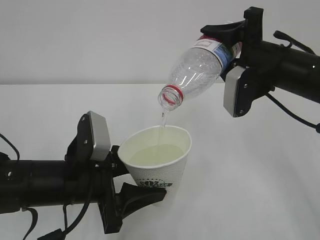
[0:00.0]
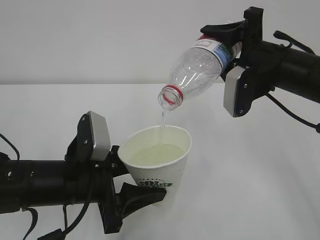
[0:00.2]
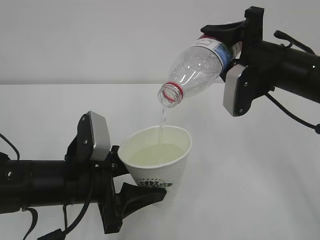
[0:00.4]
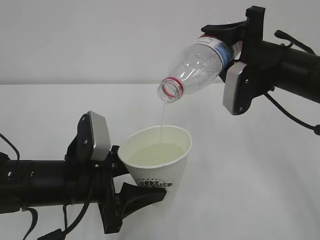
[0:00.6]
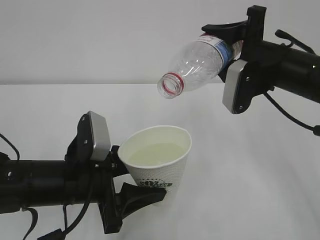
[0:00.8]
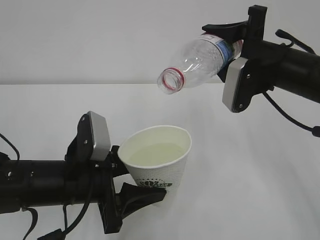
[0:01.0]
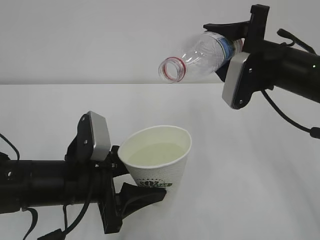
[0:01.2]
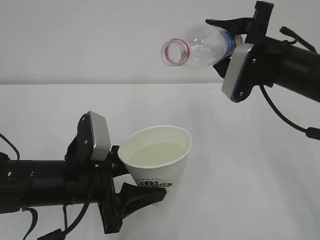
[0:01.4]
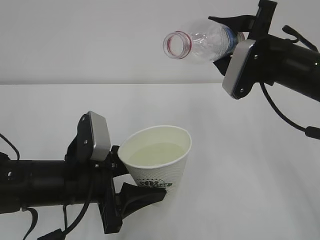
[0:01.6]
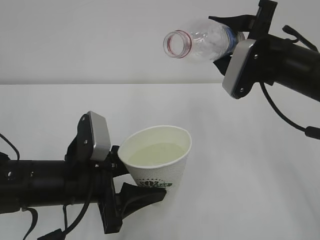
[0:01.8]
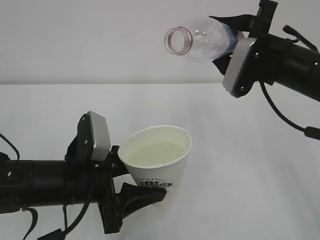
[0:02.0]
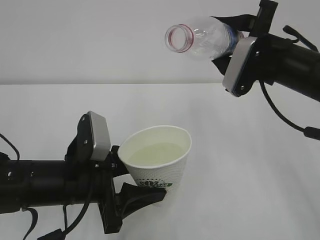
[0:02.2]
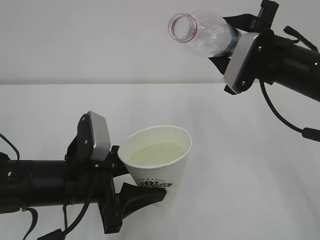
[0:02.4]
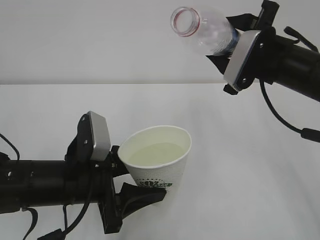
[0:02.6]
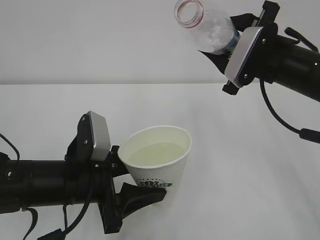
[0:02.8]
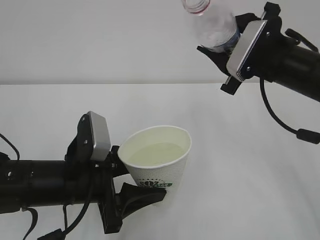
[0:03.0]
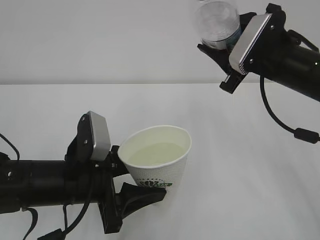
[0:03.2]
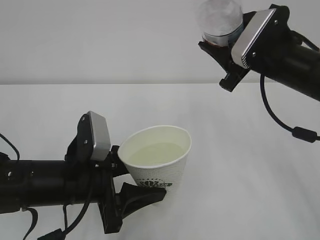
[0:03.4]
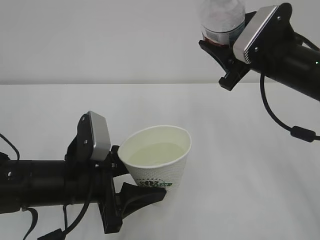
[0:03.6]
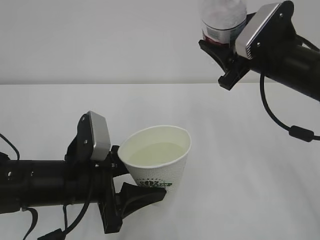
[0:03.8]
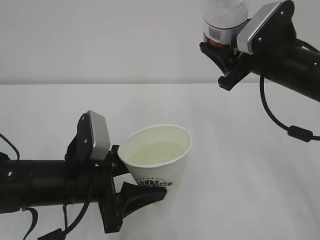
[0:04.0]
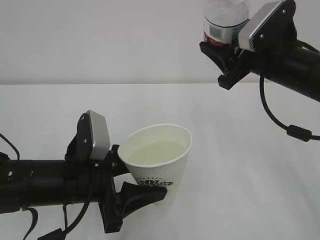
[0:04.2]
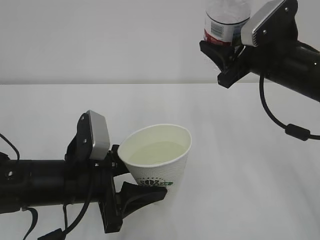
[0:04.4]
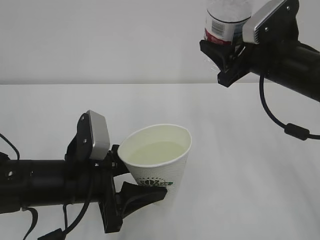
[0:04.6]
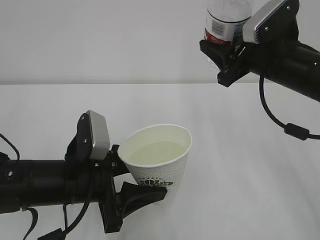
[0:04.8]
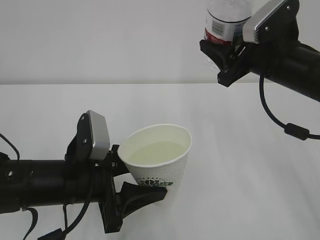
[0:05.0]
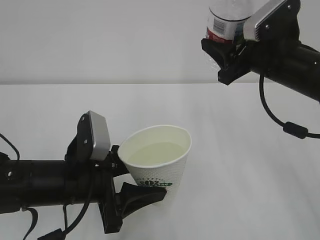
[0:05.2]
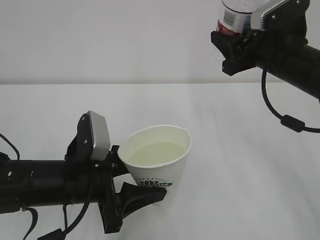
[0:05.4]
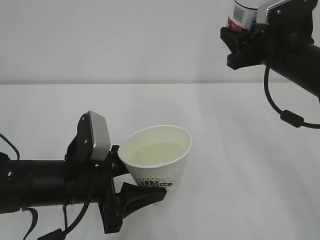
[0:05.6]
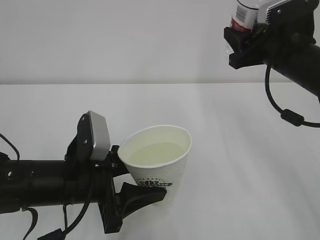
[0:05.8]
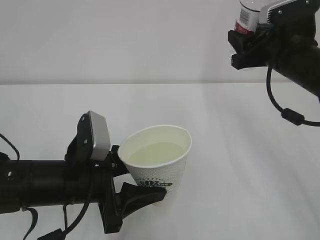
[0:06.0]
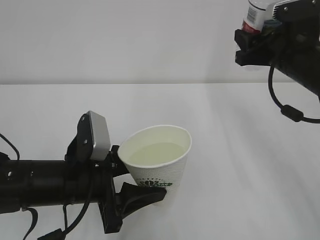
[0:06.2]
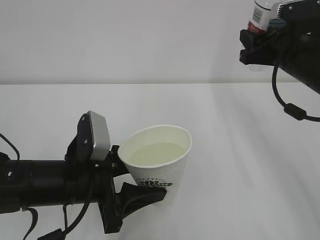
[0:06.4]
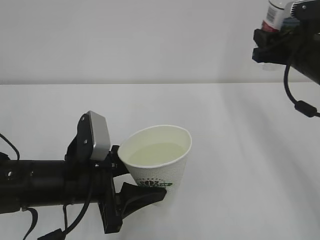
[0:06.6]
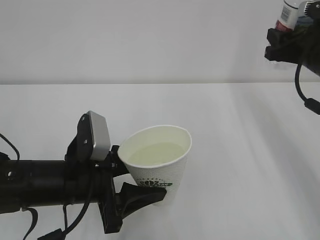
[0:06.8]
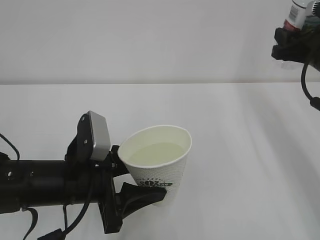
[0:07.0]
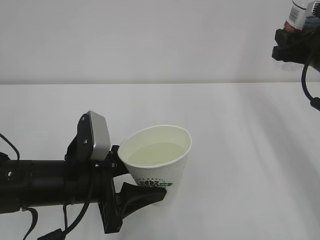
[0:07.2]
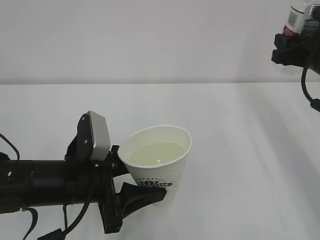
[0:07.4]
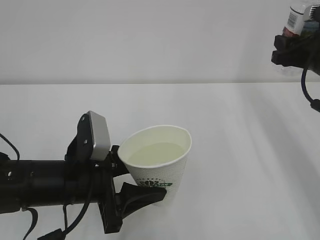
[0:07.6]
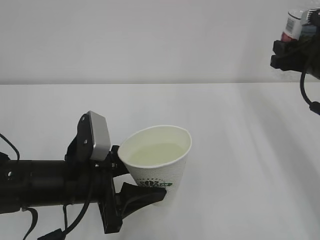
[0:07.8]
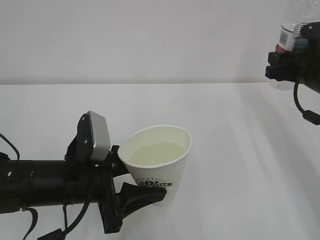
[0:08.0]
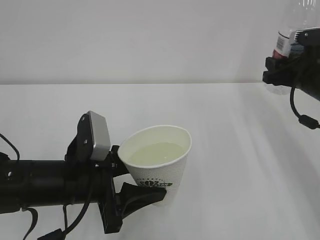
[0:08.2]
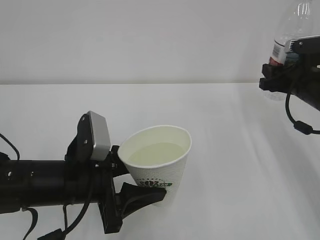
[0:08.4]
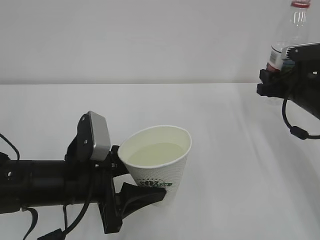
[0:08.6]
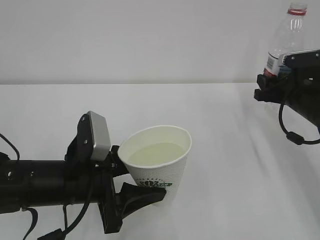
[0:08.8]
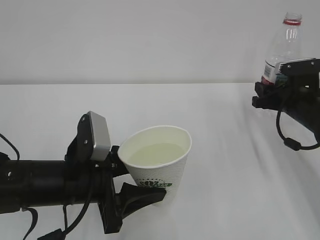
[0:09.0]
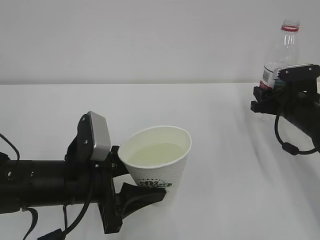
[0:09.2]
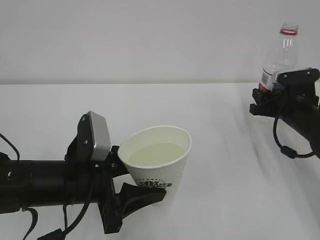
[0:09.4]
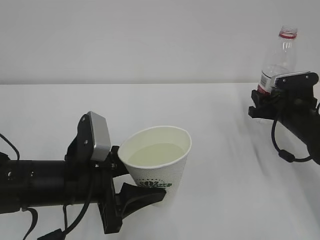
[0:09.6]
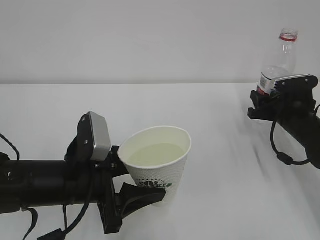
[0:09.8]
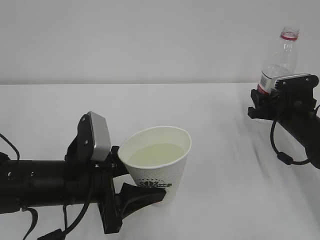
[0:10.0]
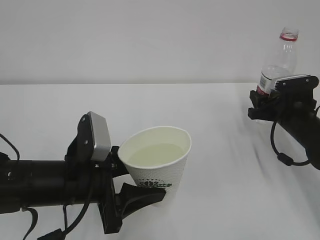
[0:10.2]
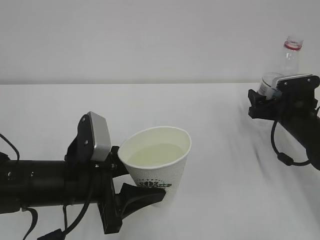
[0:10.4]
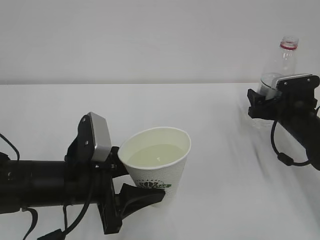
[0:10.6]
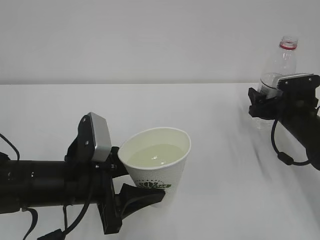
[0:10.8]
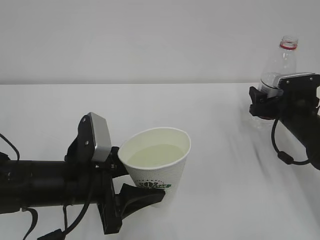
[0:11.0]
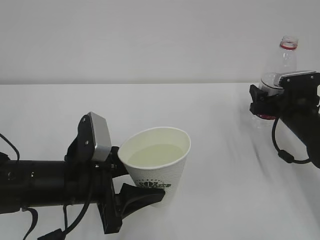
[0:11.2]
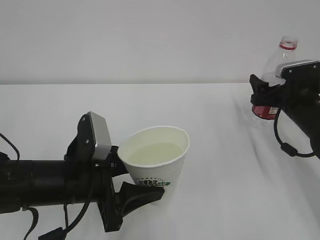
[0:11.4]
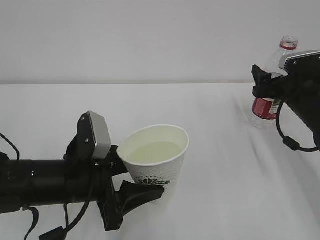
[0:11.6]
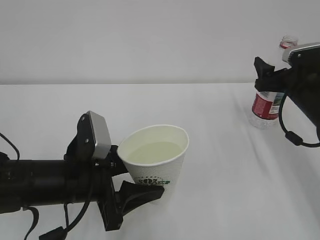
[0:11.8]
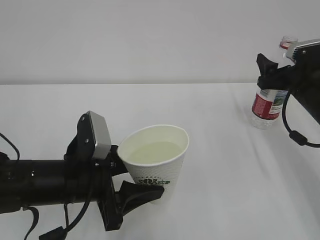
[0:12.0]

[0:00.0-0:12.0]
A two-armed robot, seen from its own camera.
0:06.0 to 0:07.6: The right gripper shifts approximately 5 cm to the right.
0:07.6 to 0:09.0: The right gripper is displaced downward by about 10 cm.
0:09.0 to 0:10.4: The right gripper opens.
0:10.4 to 0:12.0: The right gripper heads upward, covering approximately 5 cm.

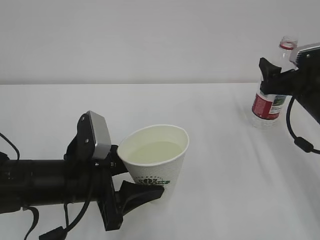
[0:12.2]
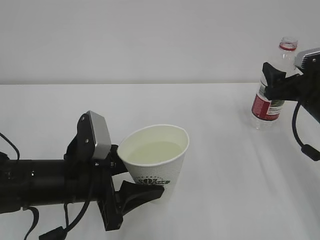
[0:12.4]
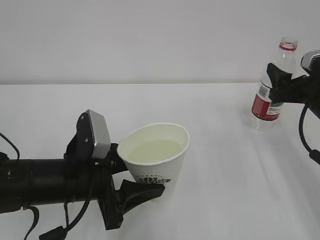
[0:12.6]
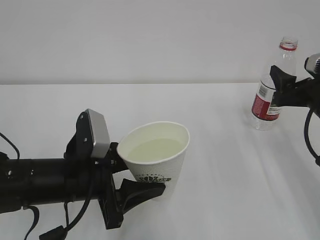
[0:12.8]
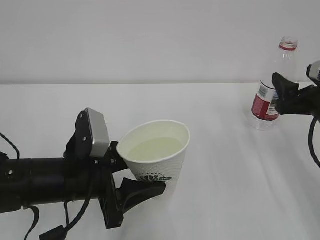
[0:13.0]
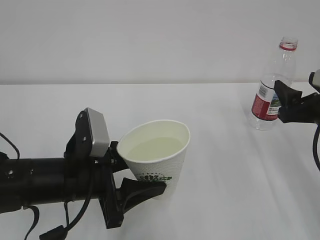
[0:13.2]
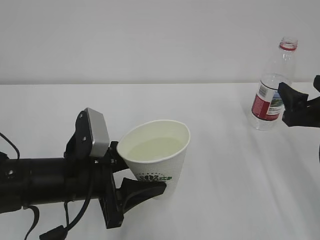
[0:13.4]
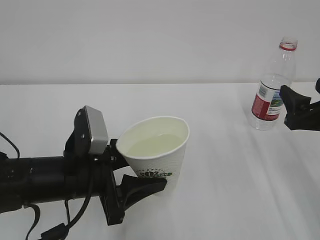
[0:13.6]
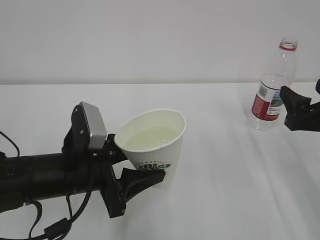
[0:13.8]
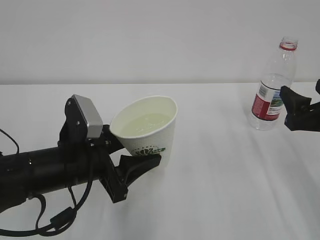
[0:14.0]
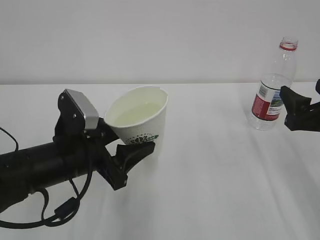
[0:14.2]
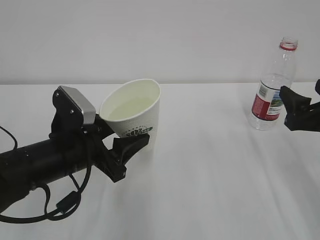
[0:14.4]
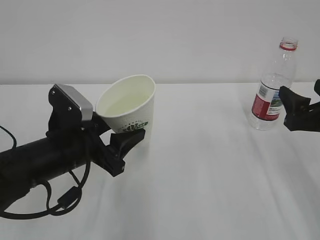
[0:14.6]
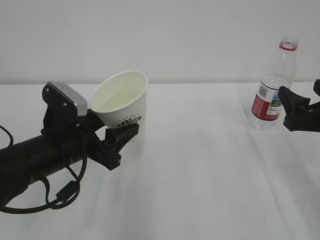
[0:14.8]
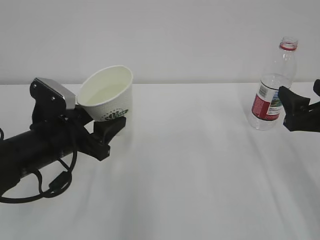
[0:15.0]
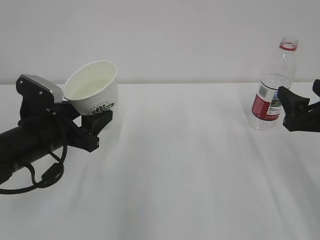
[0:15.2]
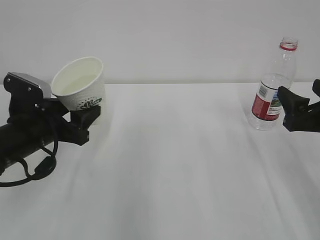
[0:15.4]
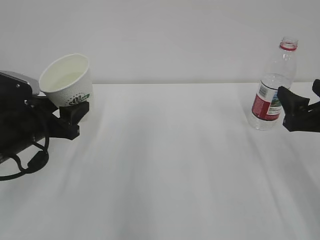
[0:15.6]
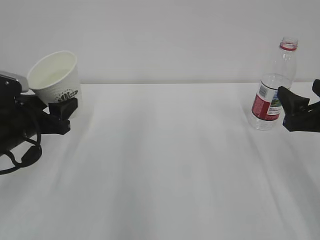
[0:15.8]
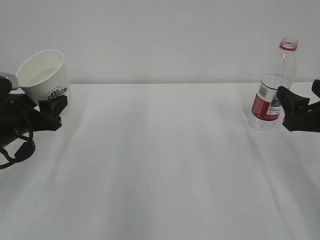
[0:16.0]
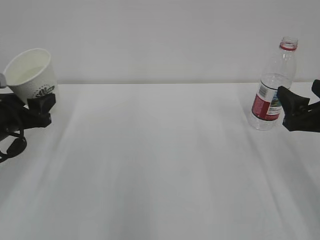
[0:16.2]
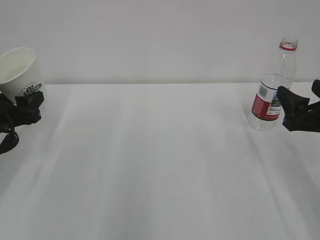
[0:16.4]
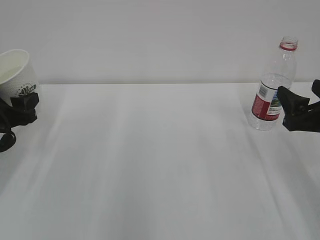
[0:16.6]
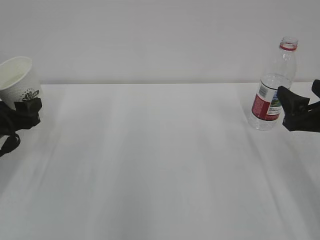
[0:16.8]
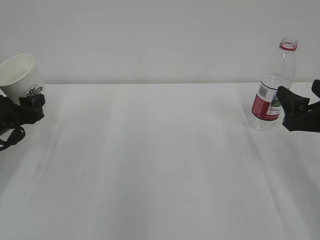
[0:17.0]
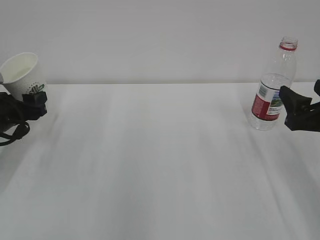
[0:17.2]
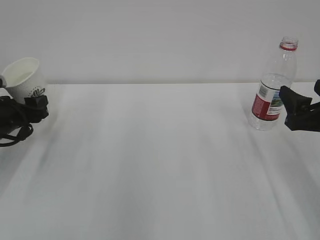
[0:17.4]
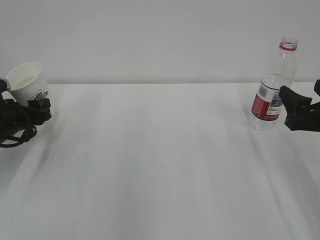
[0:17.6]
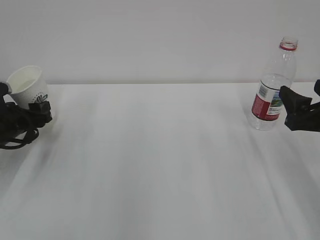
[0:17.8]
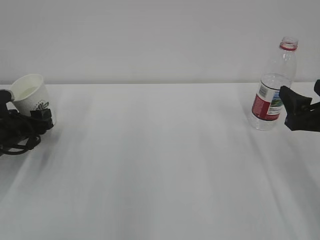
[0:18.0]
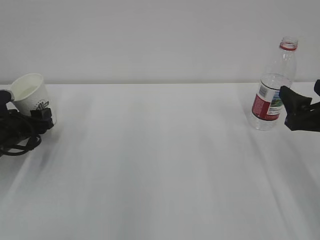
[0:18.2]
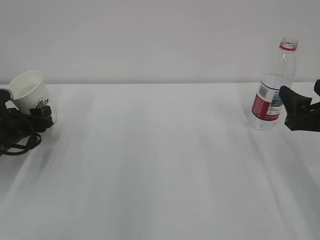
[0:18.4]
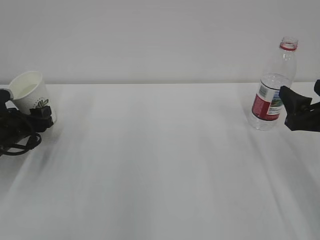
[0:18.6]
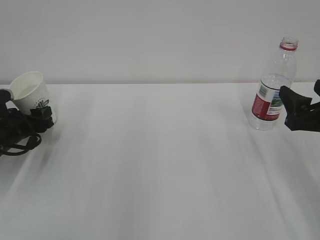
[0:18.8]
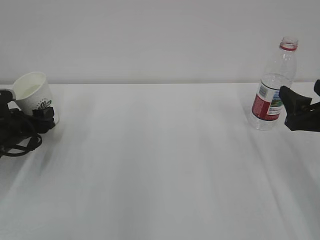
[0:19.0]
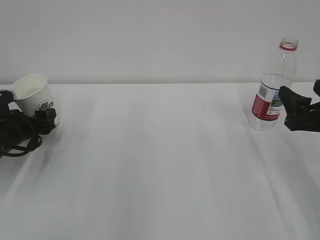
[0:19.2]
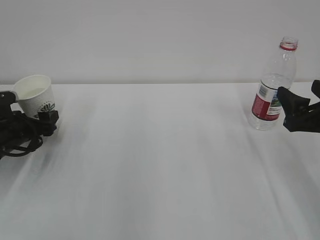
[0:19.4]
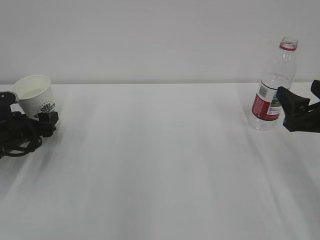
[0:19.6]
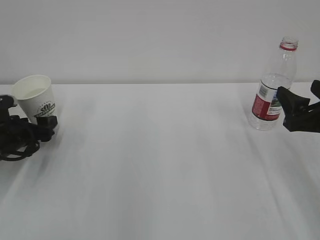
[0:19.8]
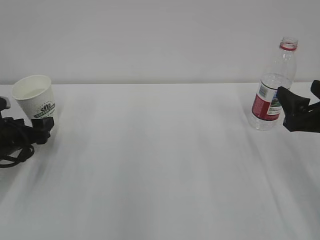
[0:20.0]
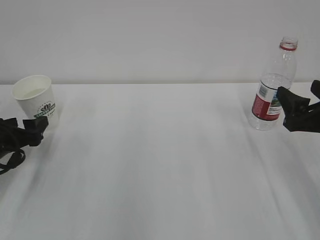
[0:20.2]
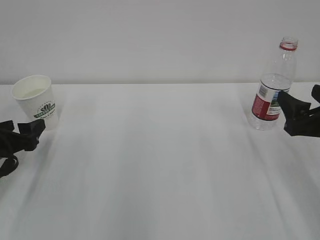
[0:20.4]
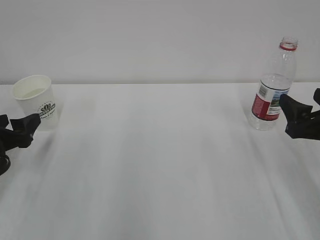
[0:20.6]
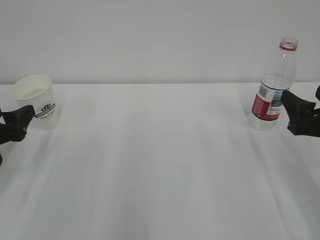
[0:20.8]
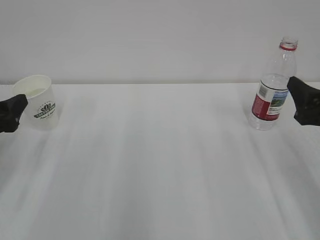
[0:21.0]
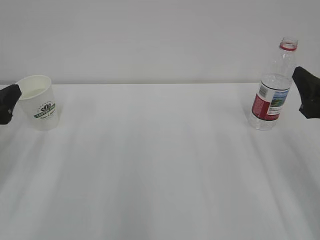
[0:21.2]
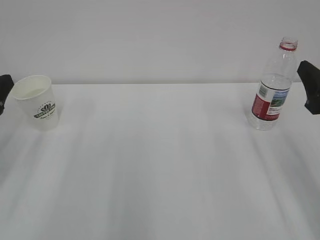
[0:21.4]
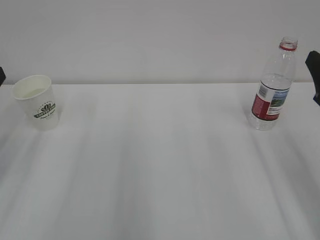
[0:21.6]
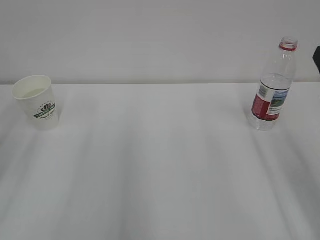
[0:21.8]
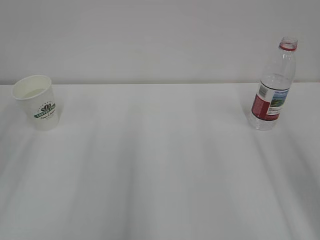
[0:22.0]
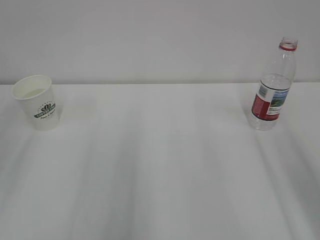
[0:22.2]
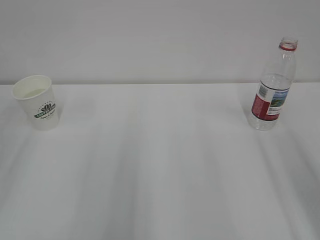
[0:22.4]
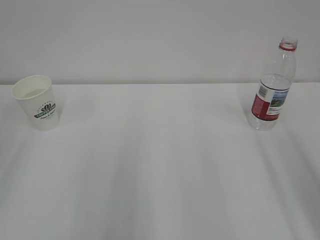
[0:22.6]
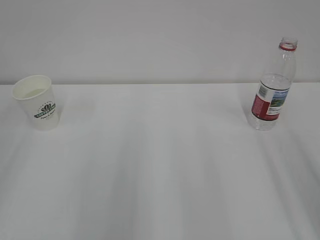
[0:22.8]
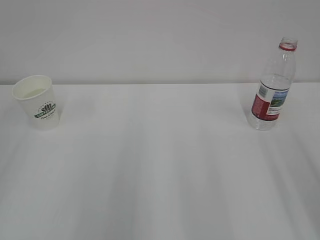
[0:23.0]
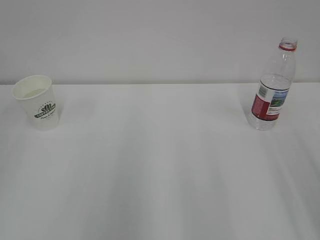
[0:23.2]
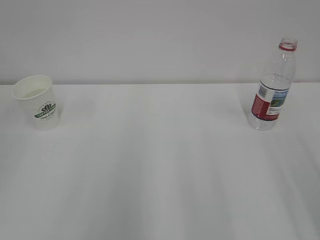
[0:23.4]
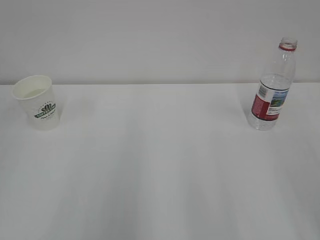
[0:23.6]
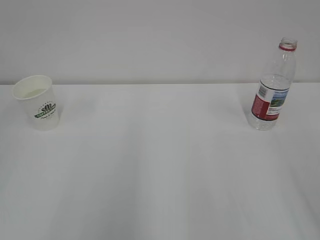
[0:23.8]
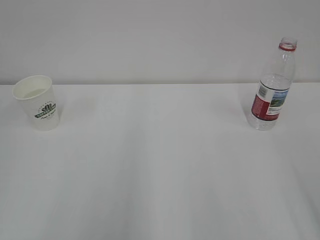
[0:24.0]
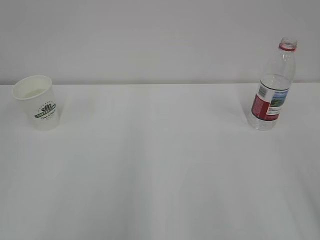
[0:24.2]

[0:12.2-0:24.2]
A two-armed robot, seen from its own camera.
0:12.2 to 0:13.8: The right gripper heads backward, covering roughly 10 cm.
0:13.8 to 0:15.2: The left gripper heads to the left and forward, covering roughly 10 cm.
0:15.2 to 0:16.6: The left gripper shifts about 10 cm to the left.
0:16.6 to 0:18.2: The left gripper moves downward and forward, some 10 cm.
0:18.2 to 0:19.8: The left gripper opens up.
0:19.8 to 0:21.2: The left gripper is displaced upward and backward by about 15 cm.
0:21.2 to 0:22.6: The right gripper heads upward and backward, covering roughly 10 cm, while the left gripper moves backward and upward, roughly 15 cm.
